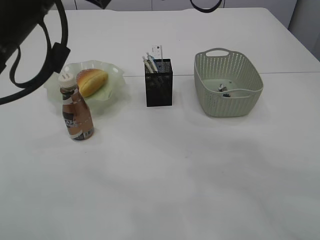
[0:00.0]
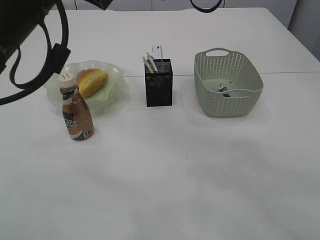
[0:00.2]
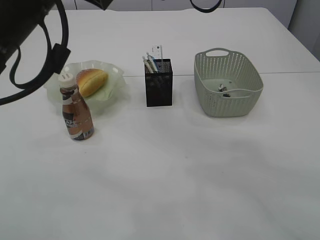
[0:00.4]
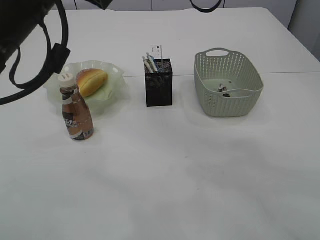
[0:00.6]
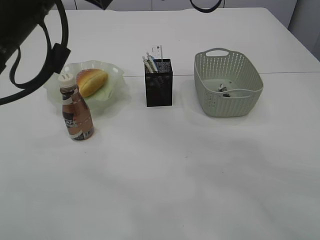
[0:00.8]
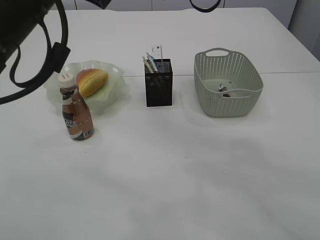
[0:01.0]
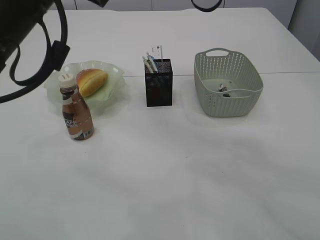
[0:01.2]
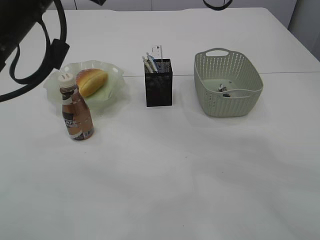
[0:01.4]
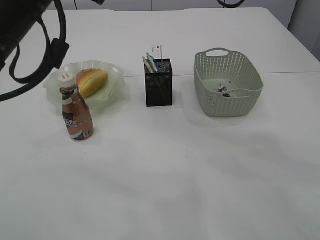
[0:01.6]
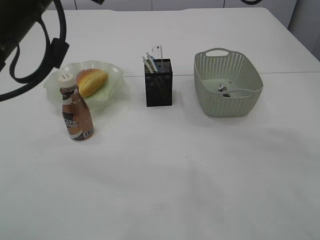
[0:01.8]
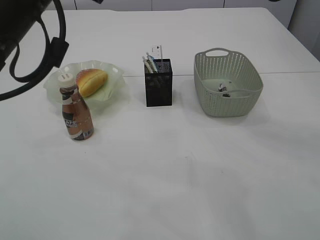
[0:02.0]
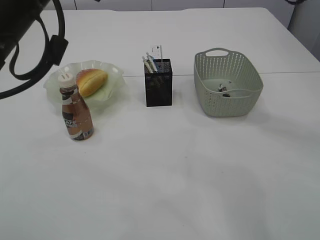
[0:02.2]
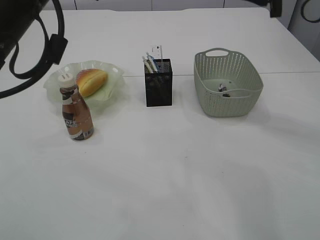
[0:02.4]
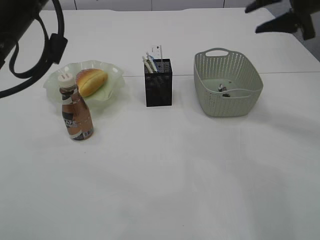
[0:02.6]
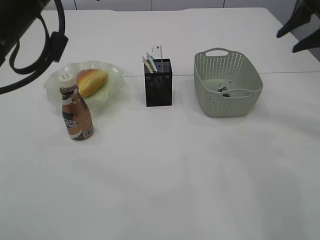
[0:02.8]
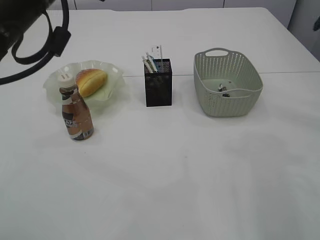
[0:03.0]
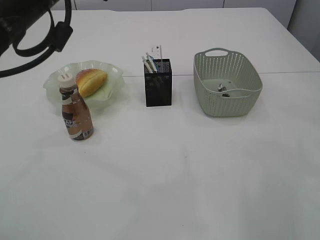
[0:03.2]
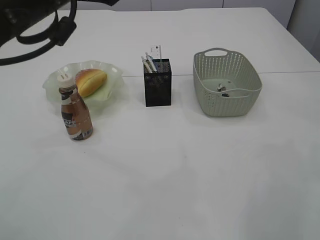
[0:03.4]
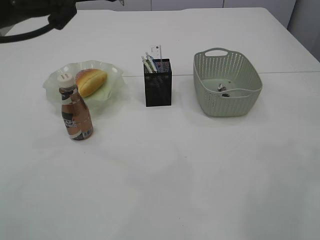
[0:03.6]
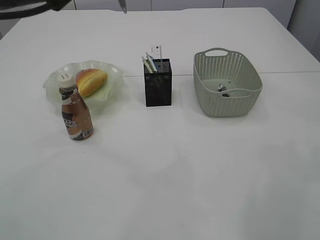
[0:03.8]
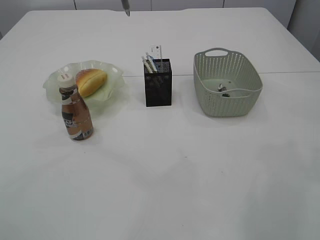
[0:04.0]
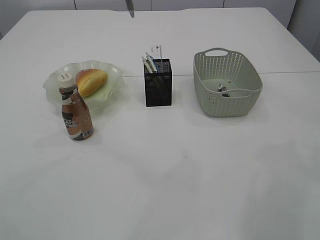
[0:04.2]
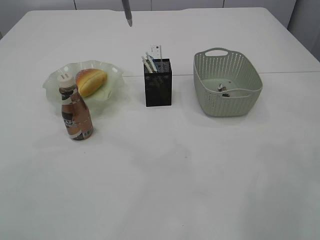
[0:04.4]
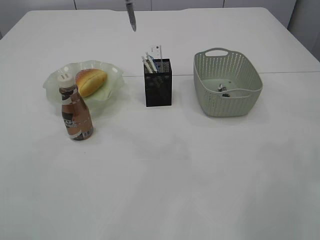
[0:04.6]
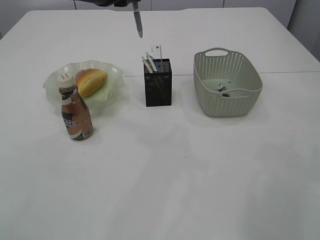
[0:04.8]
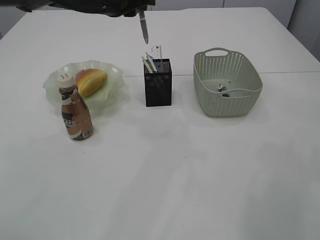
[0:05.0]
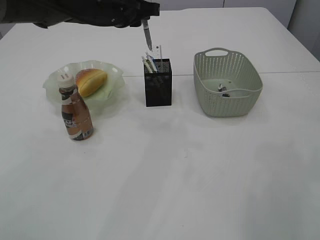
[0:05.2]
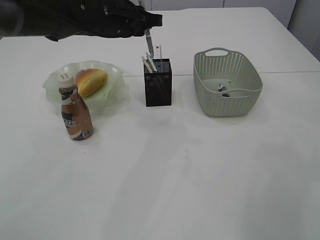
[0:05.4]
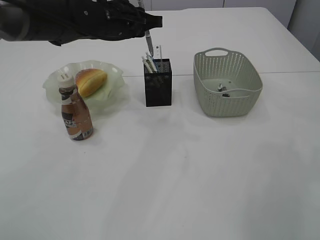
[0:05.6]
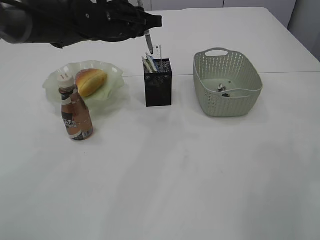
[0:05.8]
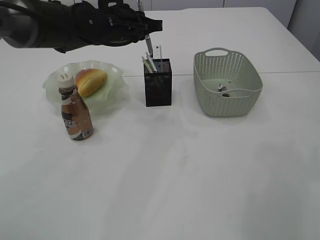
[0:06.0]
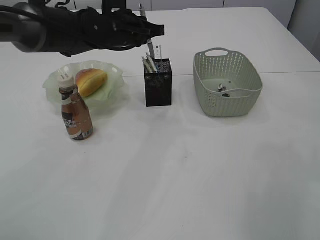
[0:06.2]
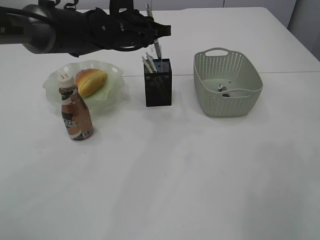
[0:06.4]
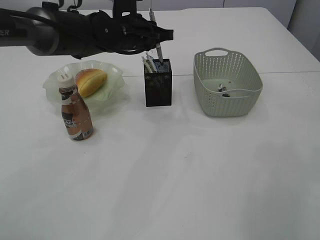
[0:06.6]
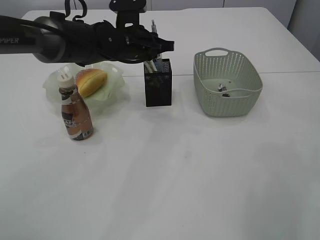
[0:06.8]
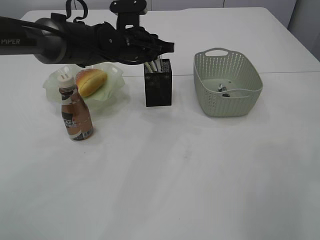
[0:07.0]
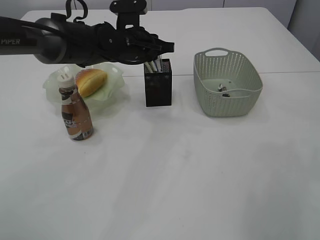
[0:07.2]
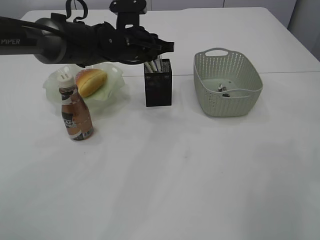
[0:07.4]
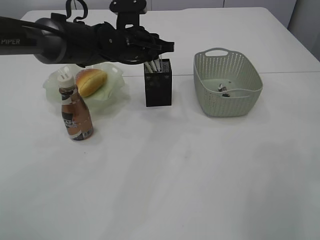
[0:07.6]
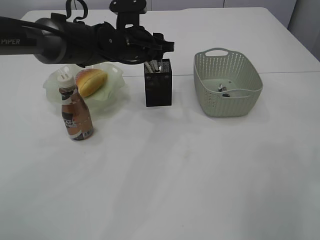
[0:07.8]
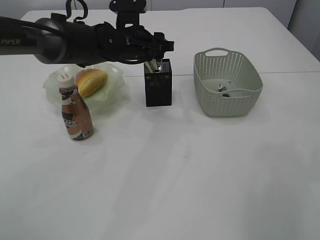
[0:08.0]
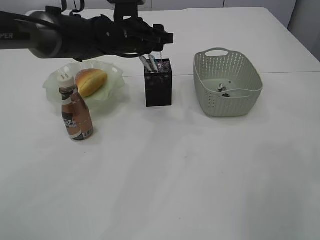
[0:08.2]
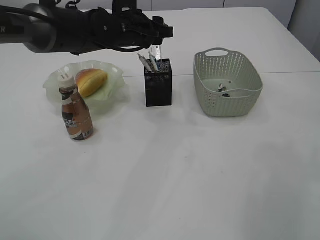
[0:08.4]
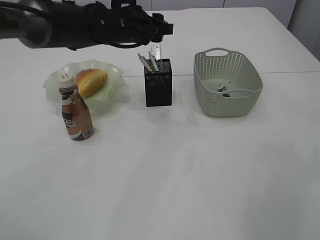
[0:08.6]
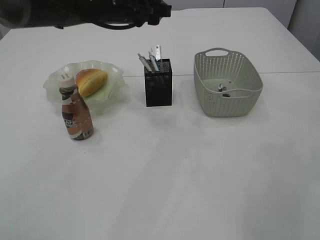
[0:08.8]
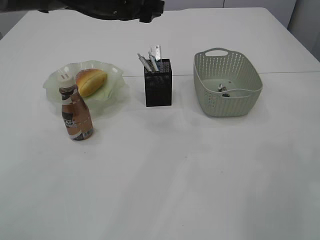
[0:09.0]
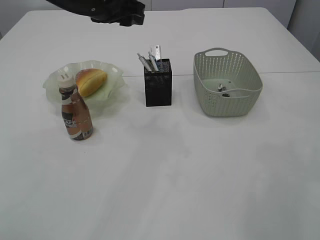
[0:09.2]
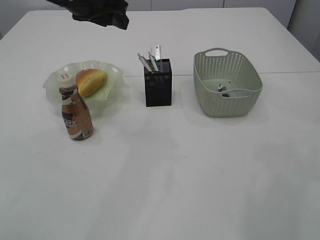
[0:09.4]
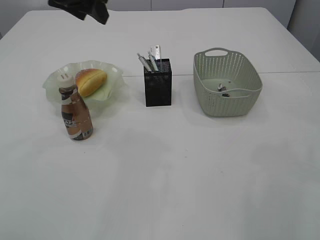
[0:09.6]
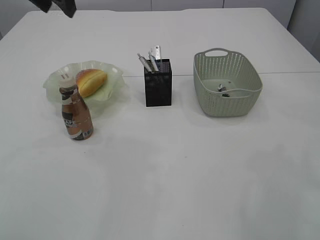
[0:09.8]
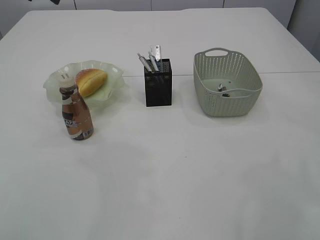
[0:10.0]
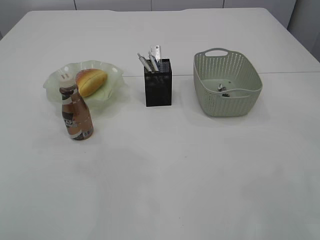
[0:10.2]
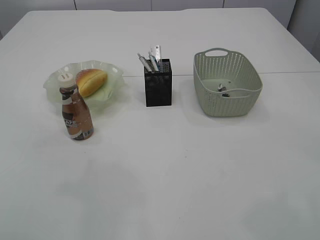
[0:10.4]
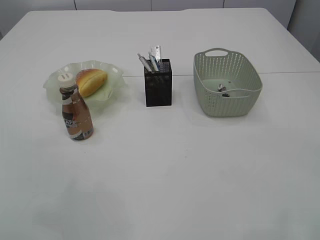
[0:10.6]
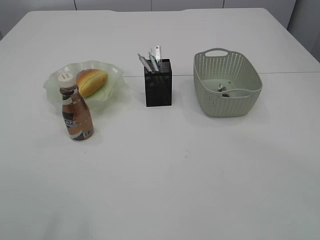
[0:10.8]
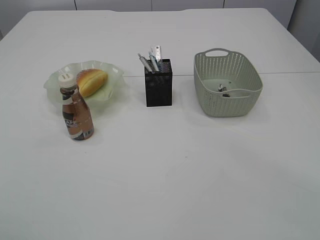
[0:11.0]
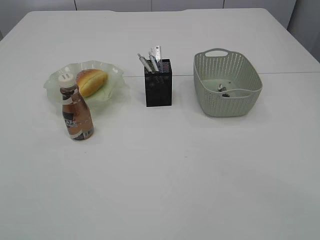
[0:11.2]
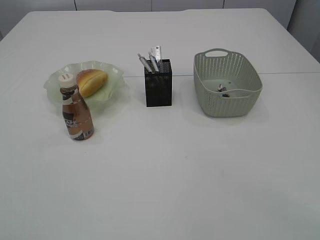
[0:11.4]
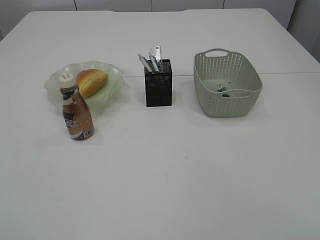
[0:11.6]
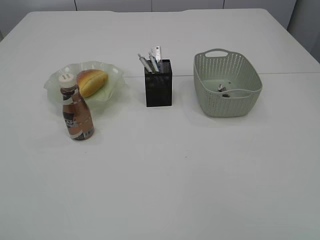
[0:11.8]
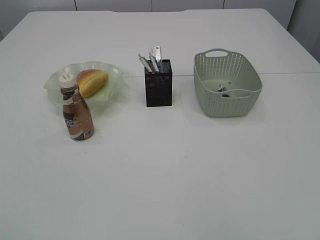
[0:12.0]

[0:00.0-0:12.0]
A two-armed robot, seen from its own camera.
Step, 0:00.0 to 0:04.0: transfer the pen to the left arm.
Step, 0:04.2 to 0:08.8: Place the pen into the pen holder.
0:03.0 to 0:04.4: The left gripper is displaced forward by approximately 5 cm.
0:04.4 to 0:06.0: The left gripper shifts some 15 cm downward and forward.
0:06.0 to 0:07.6: The grippers make only small movements.
0:07.6 to 0:09.0: The left gripper is displaced upward by approximately 10 cm, and opens up.
0:09.0 to 0:10.4: The left gripper is displaced upward, to the left and backward by some 20 cm. The right gripper is displaced backward by approximately 10 cm.
0:10.4 to 0:12.0: The left gripper moves backward, roughly 40 cm.

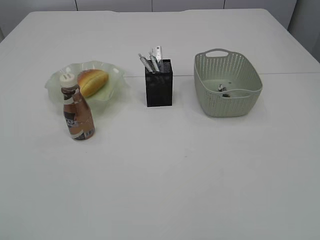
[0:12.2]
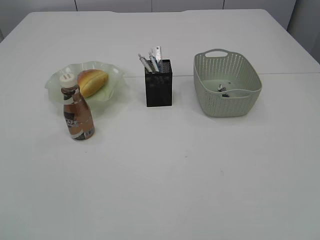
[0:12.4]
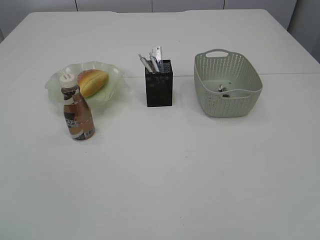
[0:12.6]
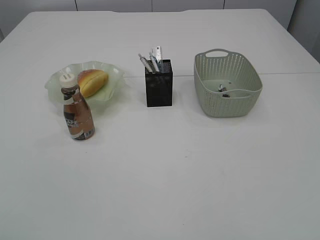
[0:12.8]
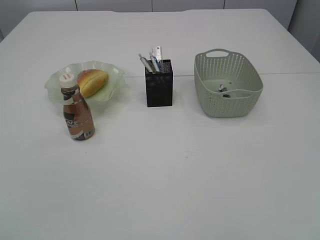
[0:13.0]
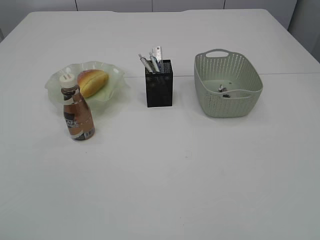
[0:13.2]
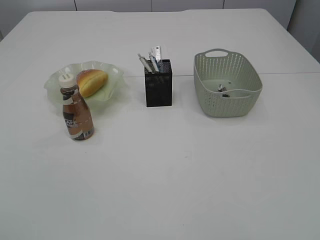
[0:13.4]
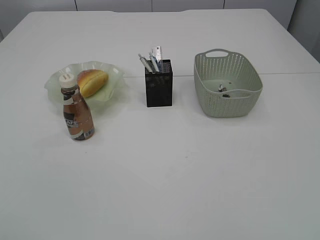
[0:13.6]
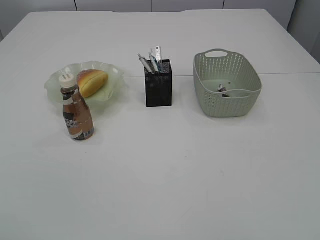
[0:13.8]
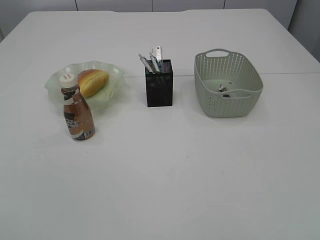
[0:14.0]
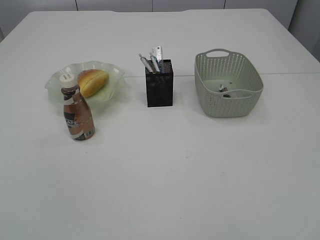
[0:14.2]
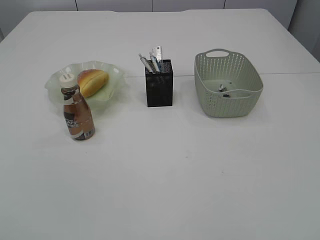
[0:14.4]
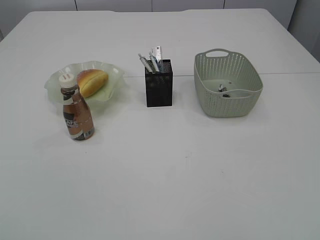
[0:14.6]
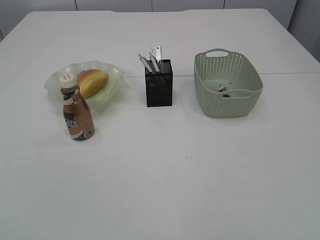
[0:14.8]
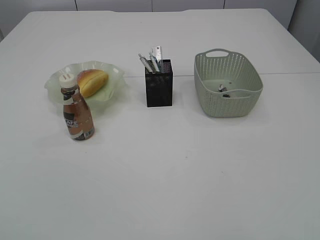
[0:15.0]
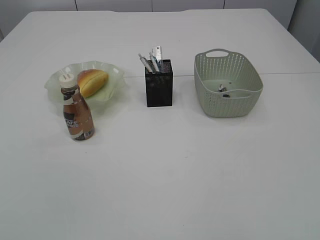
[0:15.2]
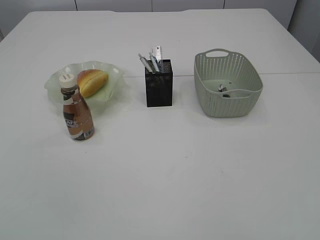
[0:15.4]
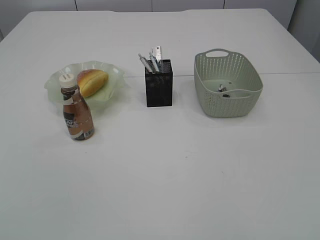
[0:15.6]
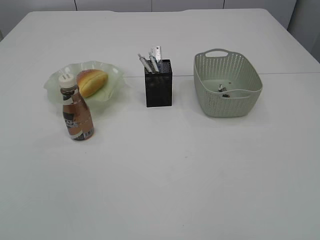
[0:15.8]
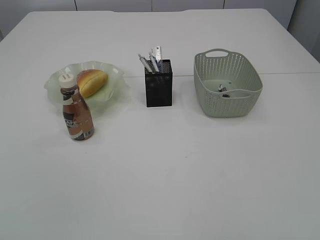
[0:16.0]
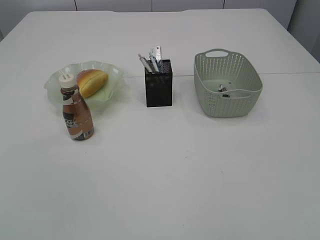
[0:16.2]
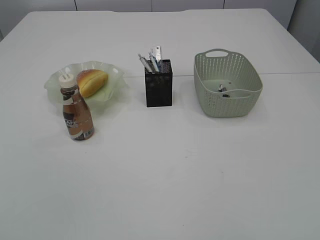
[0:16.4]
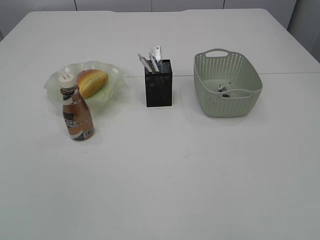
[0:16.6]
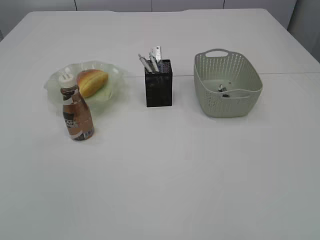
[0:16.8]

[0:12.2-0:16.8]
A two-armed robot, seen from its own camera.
0:15.2 to 0:16.8: The two grippers keep their place.

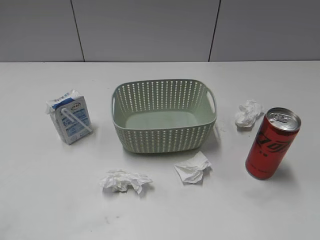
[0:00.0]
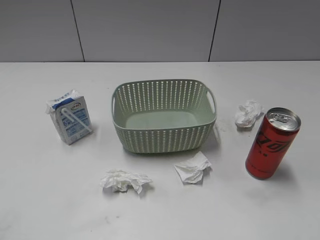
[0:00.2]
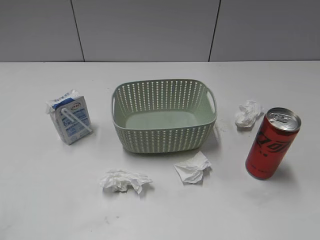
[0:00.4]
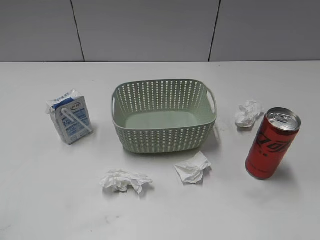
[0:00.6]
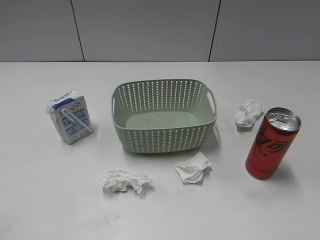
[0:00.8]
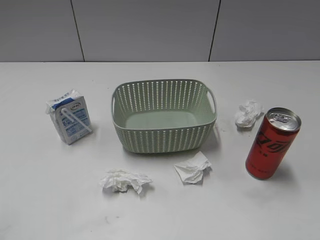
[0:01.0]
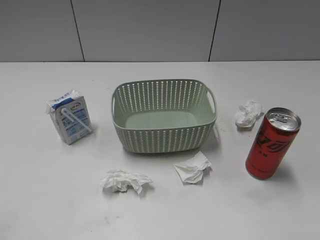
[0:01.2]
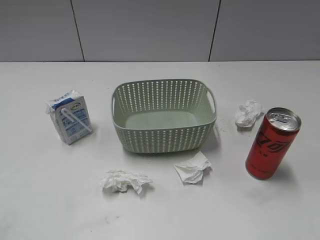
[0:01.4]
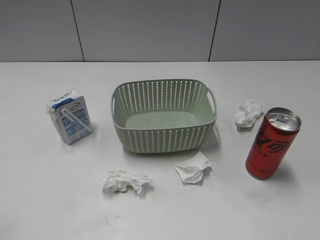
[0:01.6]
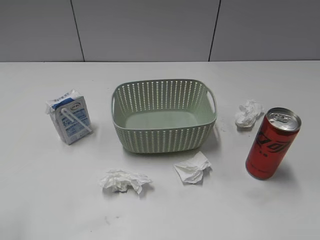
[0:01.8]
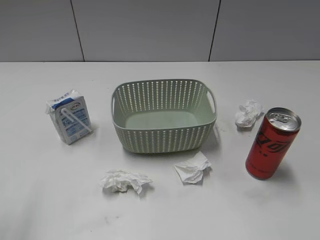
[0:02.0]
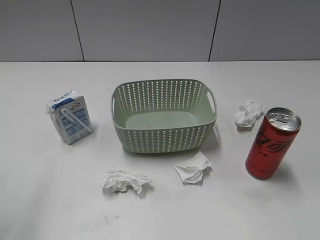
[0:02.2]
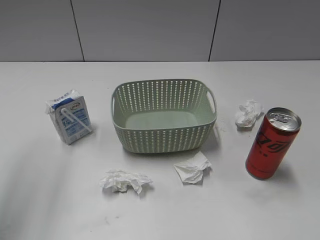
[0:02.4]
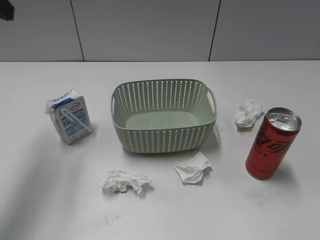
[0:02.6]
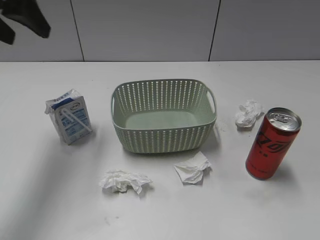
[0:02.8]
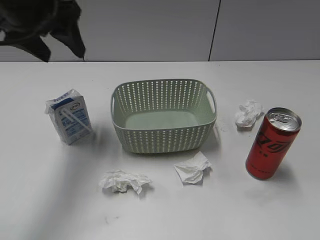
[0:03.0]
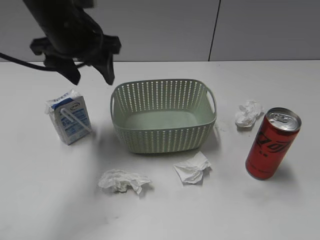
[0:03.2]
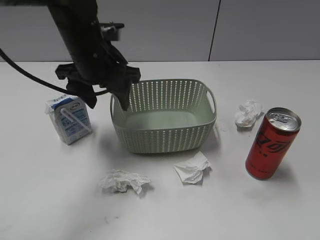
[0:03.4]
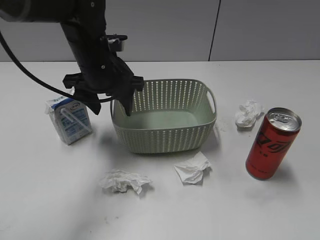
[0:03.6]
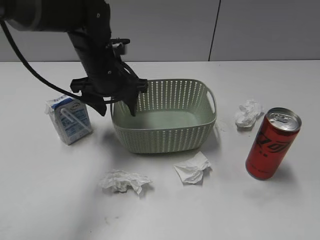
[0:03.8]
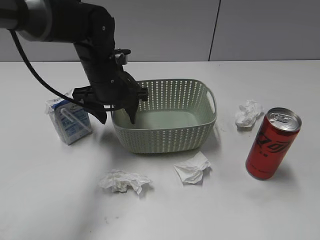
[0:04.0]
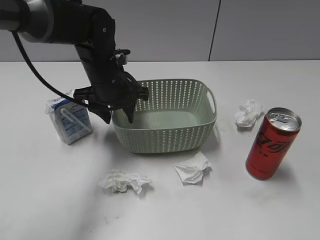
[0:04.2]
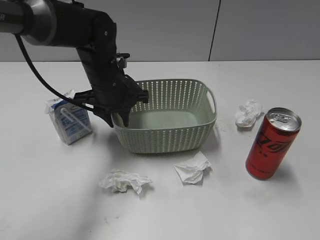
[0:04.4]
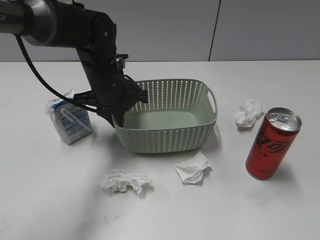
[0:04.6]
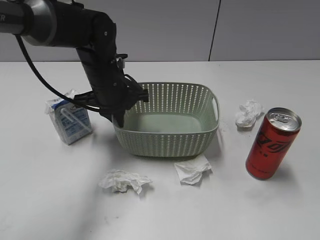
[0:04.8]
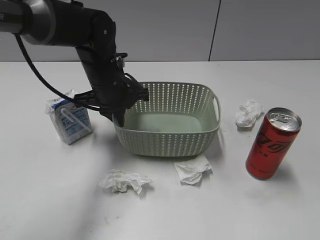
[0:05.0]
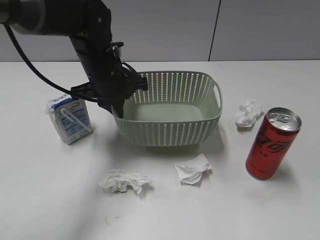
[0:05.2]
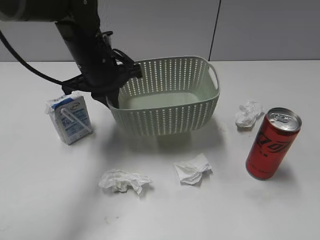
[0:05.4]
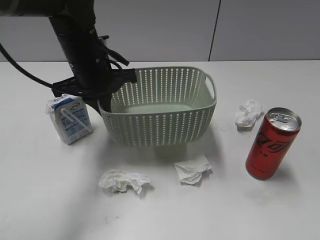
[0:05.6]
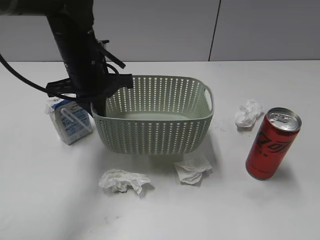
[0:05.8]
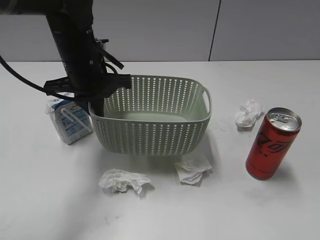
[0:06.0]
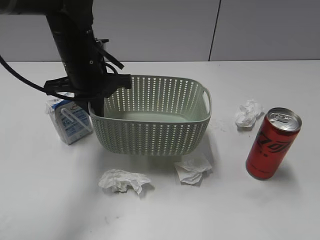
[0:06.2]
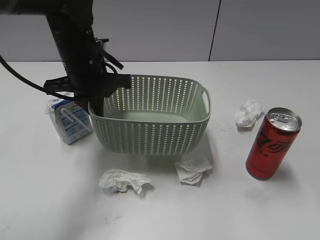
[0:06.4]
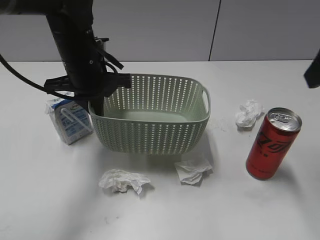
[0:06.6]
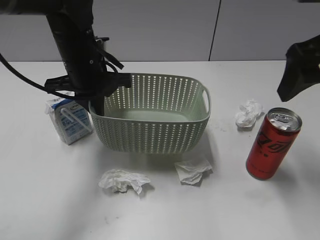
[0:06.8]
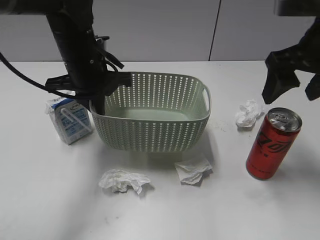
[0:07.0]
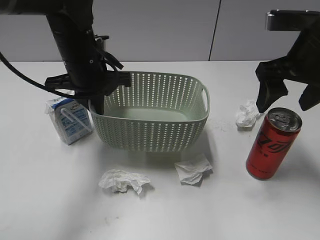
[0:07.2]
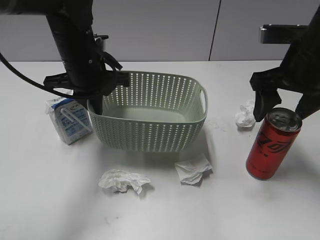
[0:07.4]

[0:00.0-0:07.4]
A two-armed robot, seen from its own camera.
Step, 0:02.6 to 0:04.8: Grasp the basket with left gripper.
Step, 0:05.0 to 0:06.4: Lift the basket with left gripper.
0:01.4 to 0:03.0: The left gripper travels forward by about 35 cm.
0:03.0 to 0:04.4: The left gripper goes approximately 20 cm downward and to the right, and closes up.
0:04.4 to 0:06.0: The left gripper travels upward by some 5 cm, and closes its fingers. Meanwhile the right gripper is displaced forward and upward by about 10 cm.
0:06.0 to 0:07.4: The right gripper is displaced forward, downward and to the left by approximately 30 cm, and opens up.
